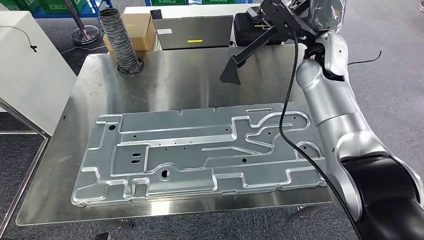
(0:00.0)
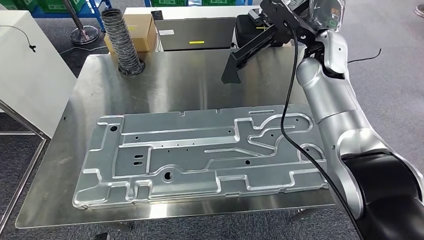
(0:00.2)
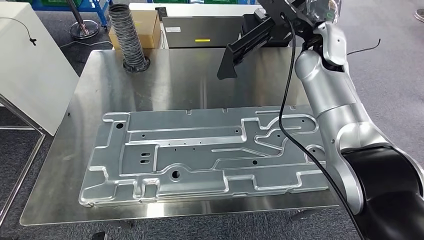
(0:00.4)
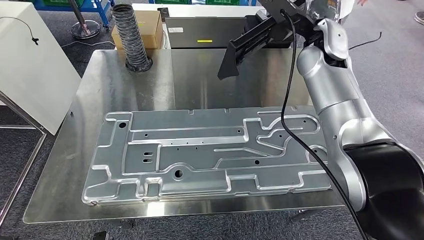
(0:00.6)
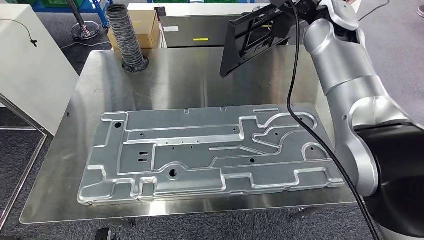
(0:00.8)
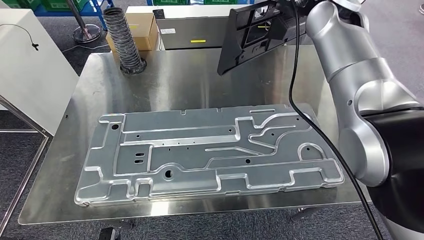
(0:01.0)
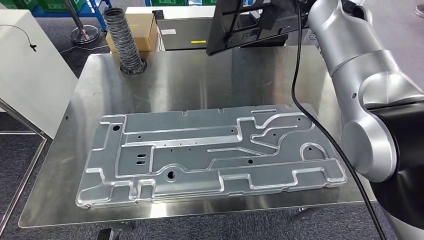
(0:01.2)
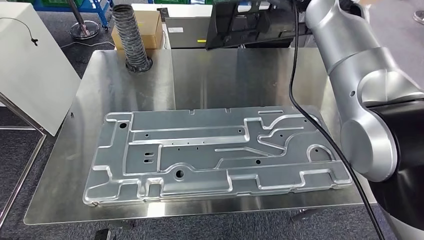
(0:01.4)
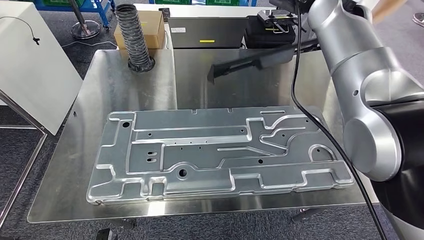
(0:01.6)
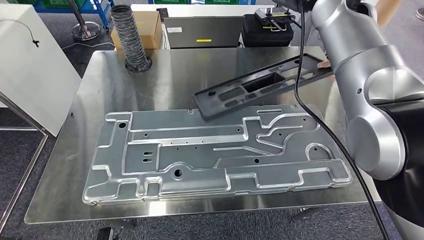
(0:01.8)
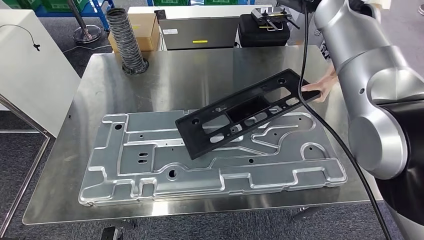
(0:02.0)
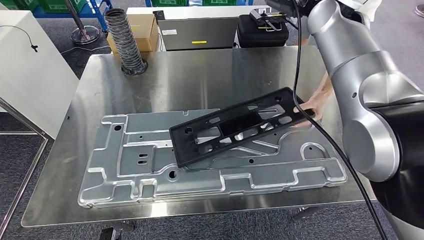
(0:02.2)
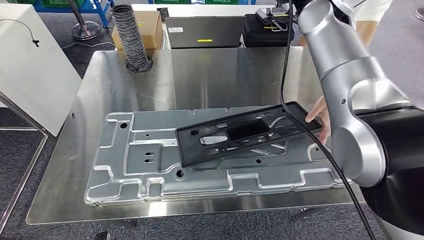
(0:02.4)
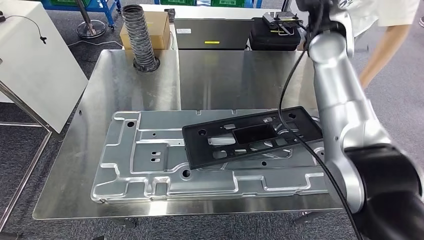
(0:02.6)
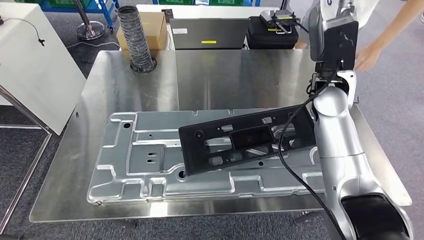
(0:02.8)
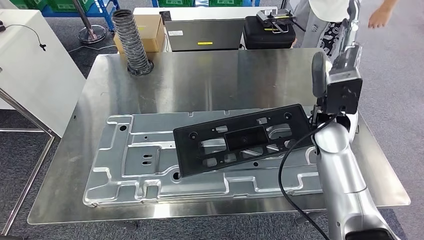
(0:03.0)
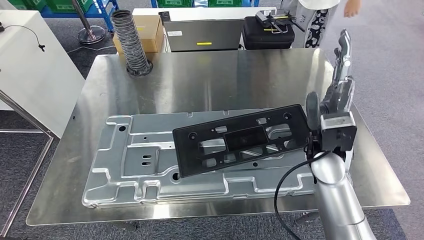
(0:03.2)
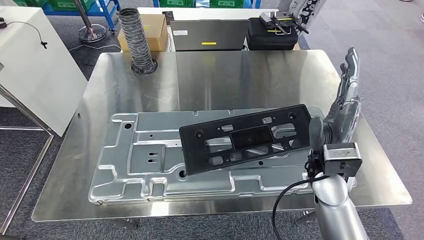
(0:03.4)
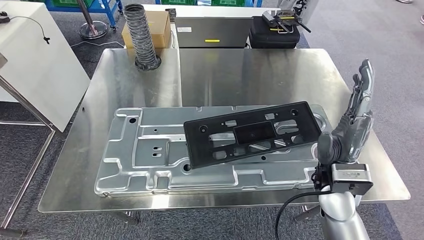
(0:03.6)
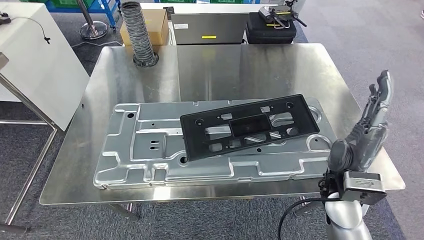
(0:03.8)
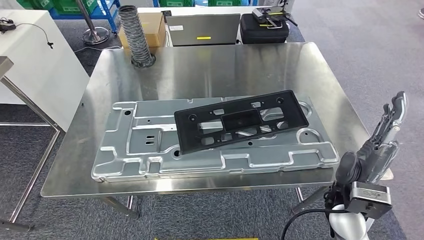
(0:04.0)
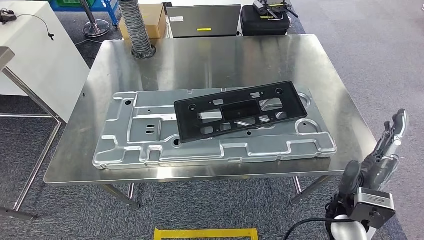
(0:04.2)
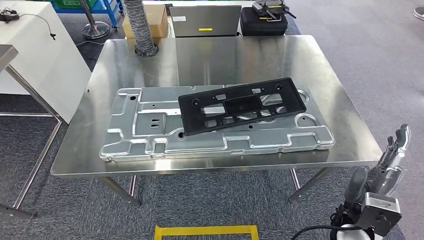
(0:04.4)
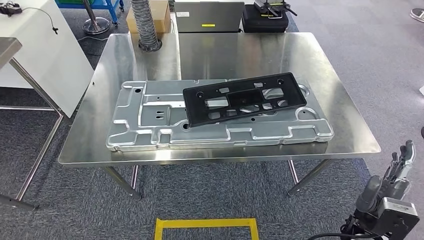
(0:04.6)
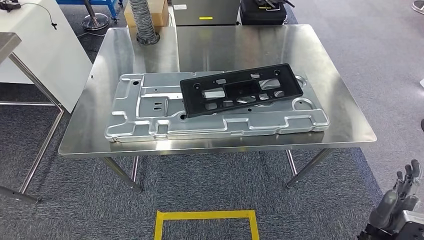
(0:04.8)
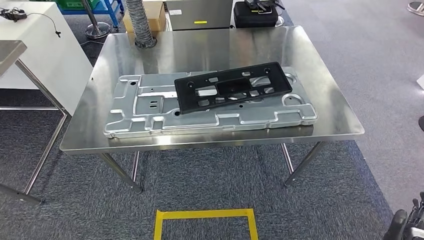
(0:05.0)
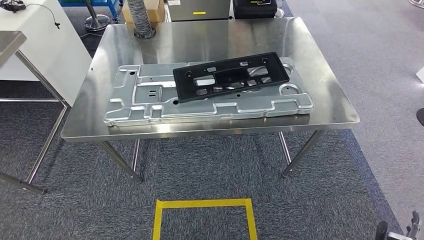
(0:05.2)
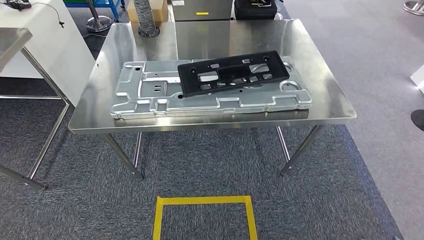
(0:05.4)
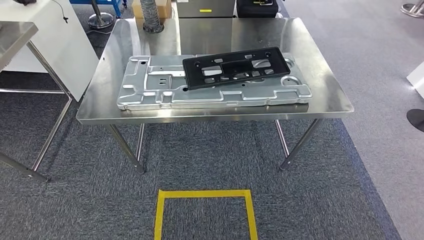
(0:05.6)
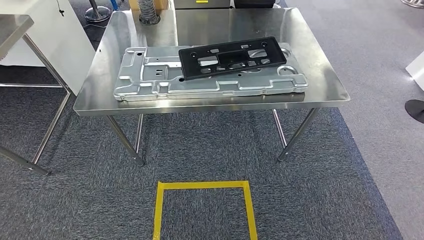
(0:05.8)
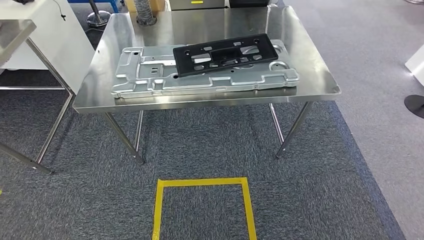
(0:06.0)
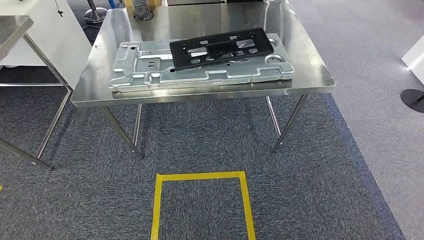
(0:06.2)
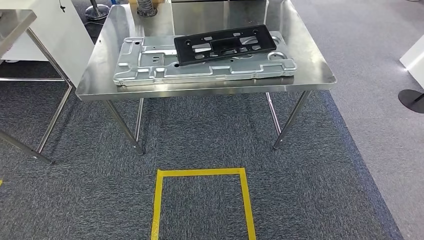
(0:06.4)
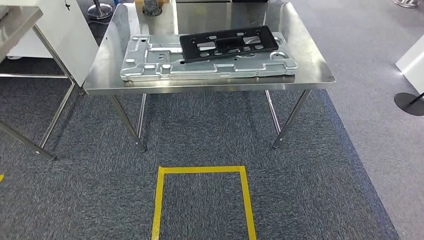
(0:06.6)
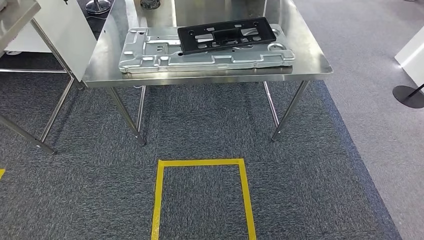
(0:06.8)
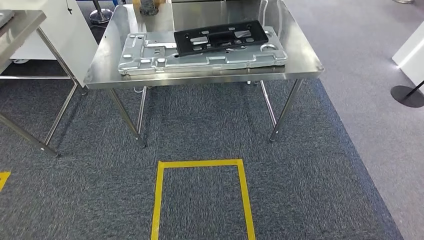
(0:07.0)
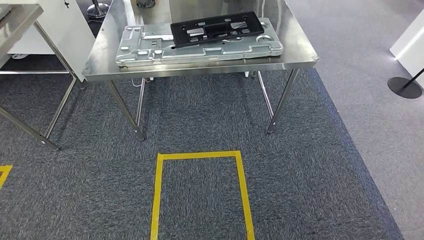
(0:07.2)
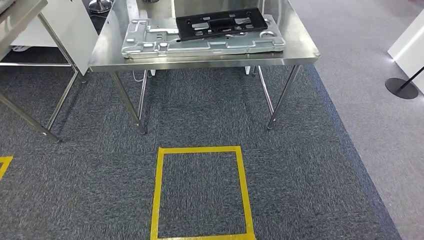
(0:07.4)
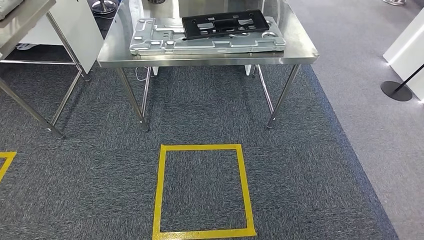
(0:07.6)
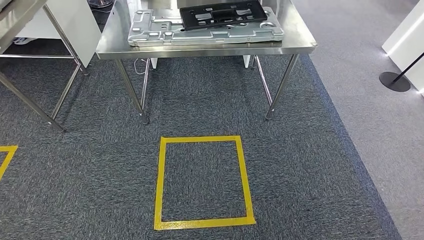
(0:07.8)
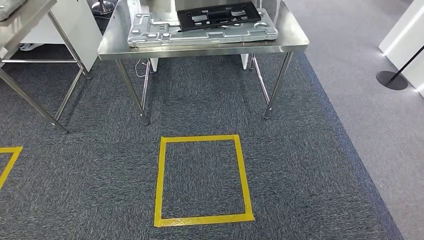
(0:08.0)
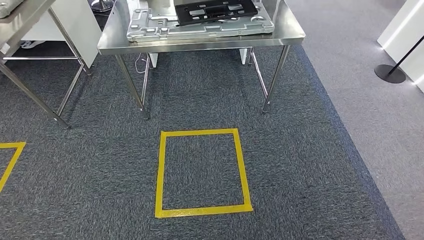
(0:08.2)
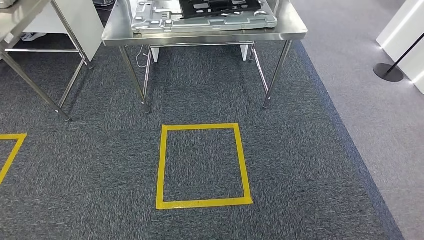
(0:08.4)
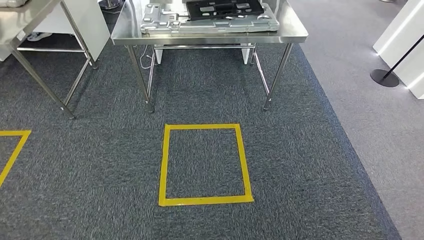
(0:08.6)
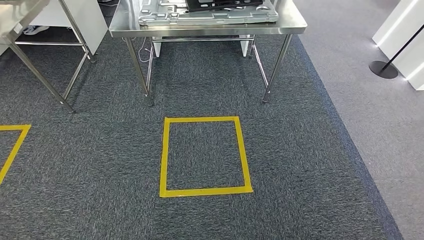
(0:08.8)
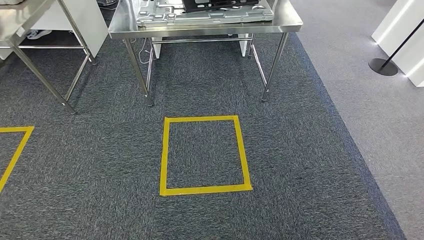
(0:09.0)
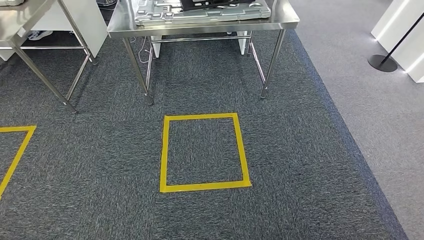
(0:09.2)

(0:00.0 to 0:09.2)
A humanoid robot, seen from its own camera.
Step, 0:00.0 - 0:05.0: Insert the large material into the corresponding slot on the workbench.
Step, 0:05.2 - 0:09.2: Return to the initial position at the shelf.

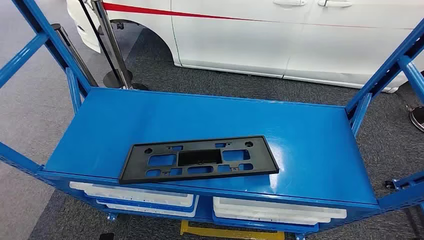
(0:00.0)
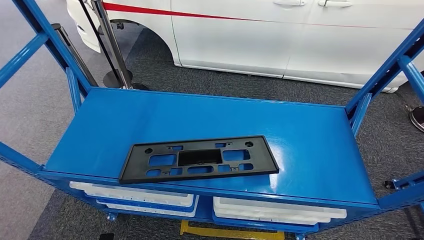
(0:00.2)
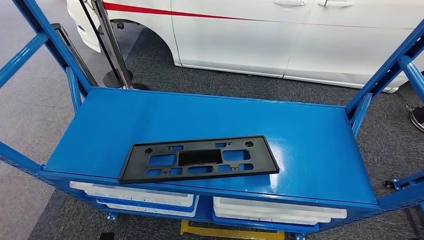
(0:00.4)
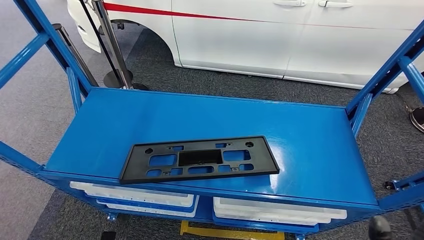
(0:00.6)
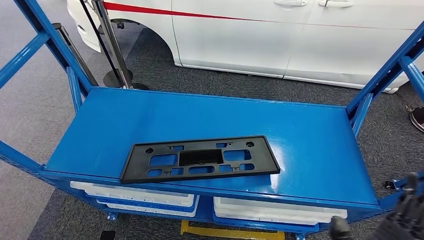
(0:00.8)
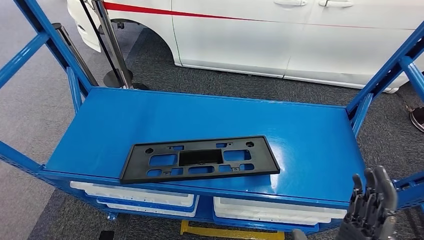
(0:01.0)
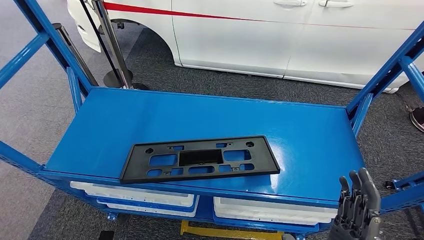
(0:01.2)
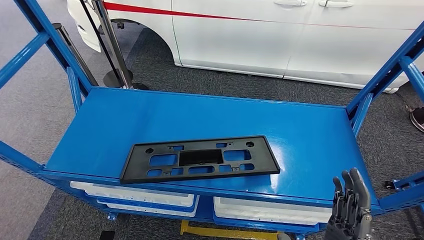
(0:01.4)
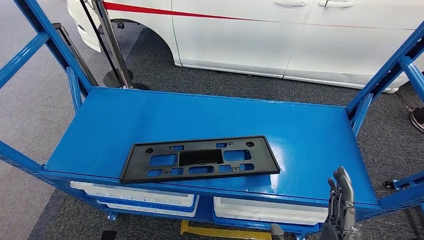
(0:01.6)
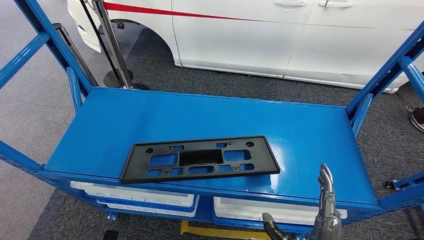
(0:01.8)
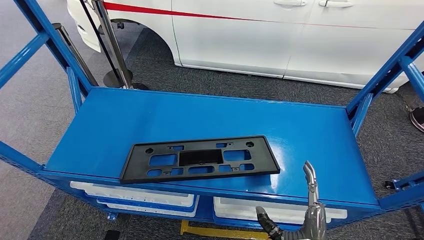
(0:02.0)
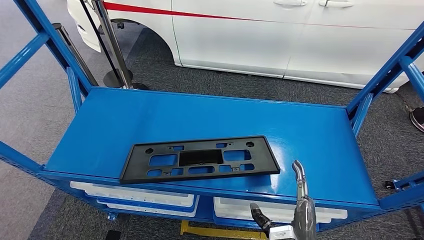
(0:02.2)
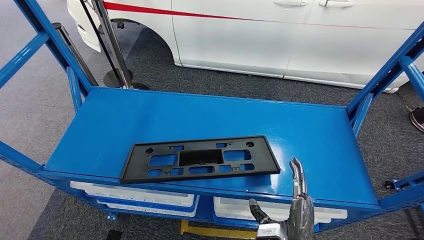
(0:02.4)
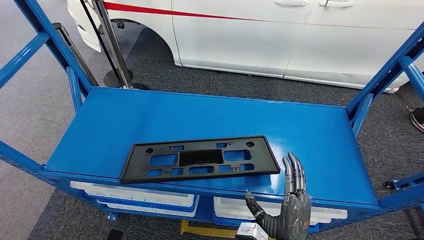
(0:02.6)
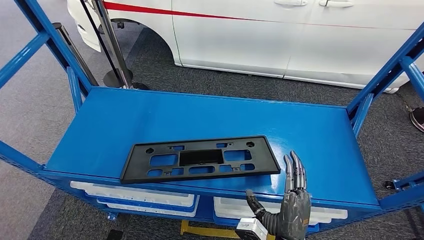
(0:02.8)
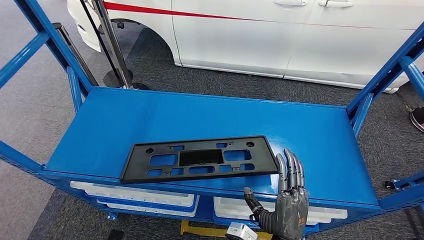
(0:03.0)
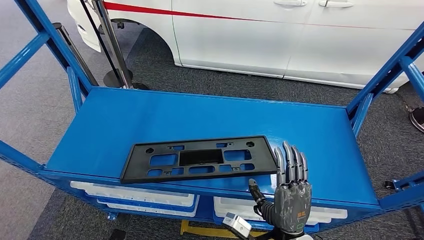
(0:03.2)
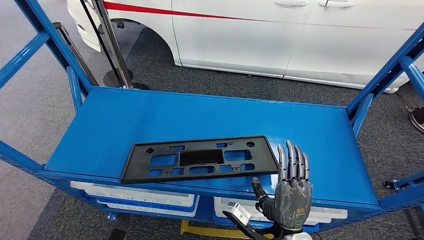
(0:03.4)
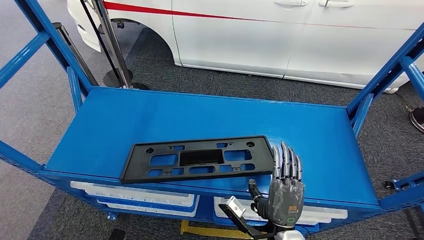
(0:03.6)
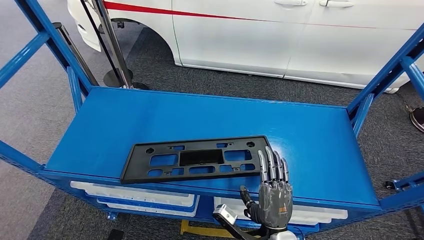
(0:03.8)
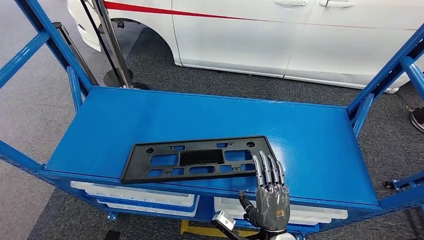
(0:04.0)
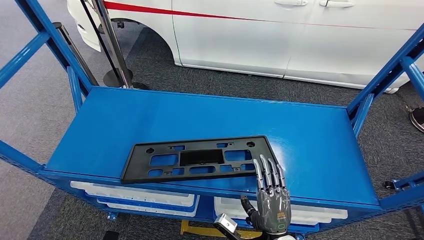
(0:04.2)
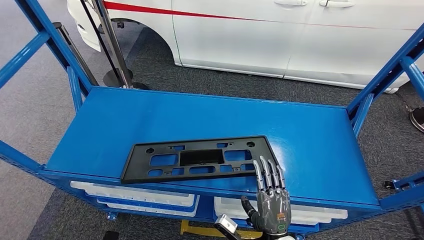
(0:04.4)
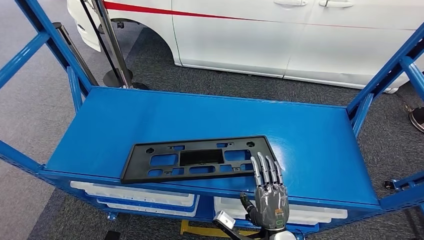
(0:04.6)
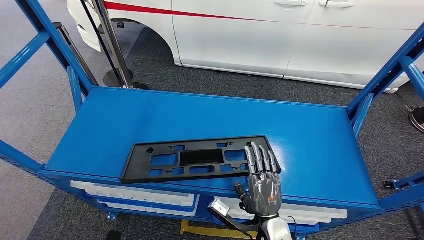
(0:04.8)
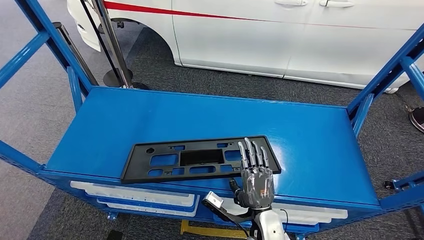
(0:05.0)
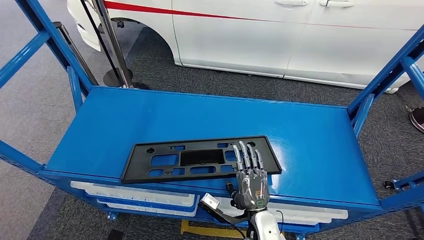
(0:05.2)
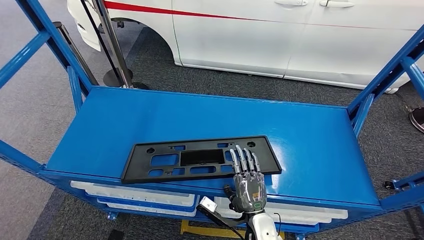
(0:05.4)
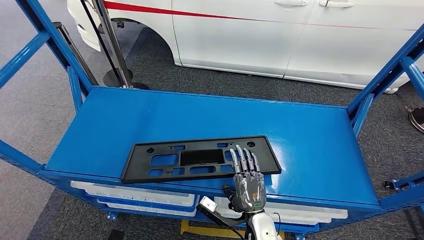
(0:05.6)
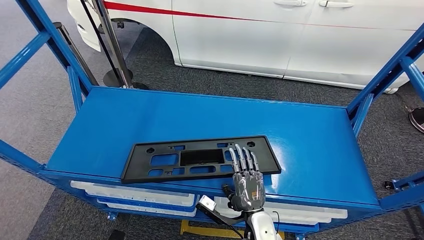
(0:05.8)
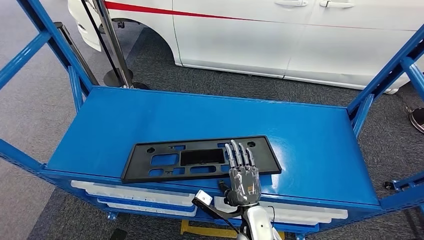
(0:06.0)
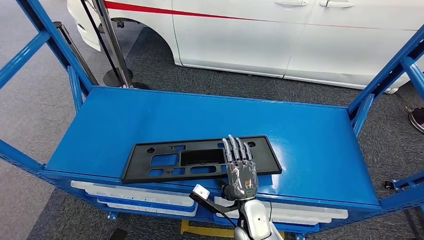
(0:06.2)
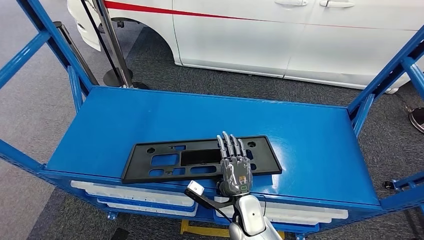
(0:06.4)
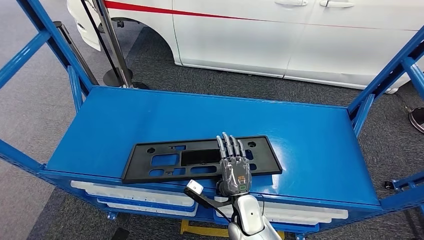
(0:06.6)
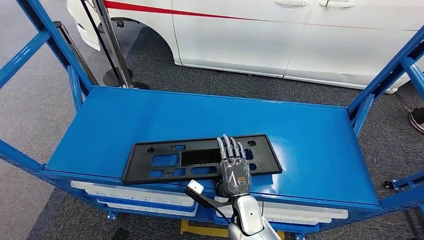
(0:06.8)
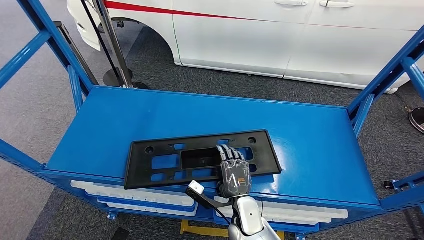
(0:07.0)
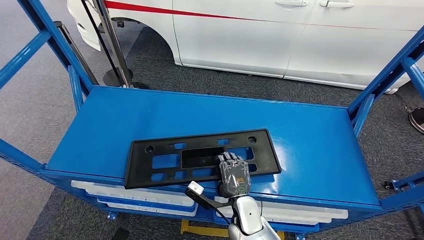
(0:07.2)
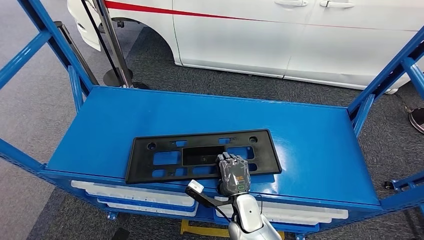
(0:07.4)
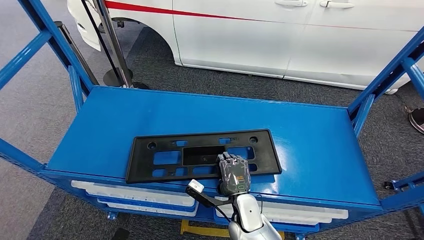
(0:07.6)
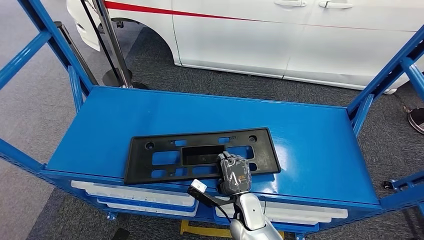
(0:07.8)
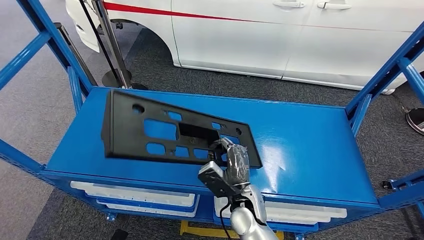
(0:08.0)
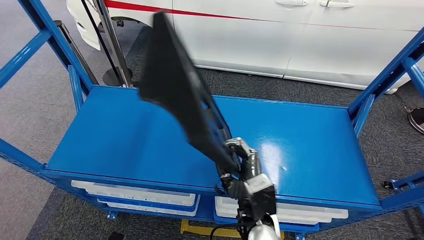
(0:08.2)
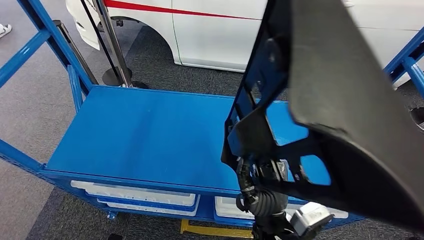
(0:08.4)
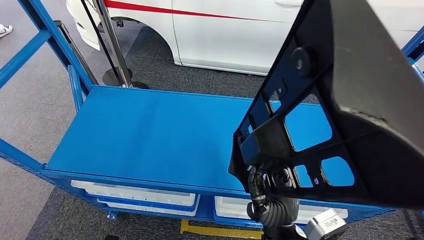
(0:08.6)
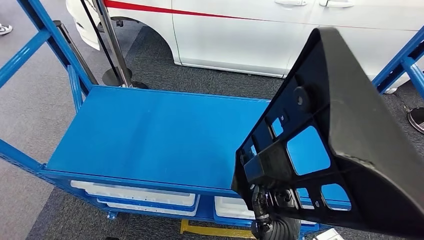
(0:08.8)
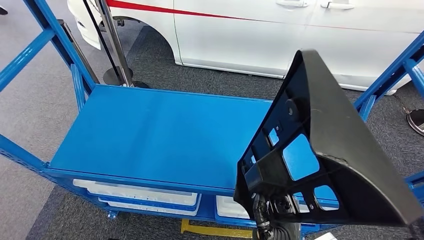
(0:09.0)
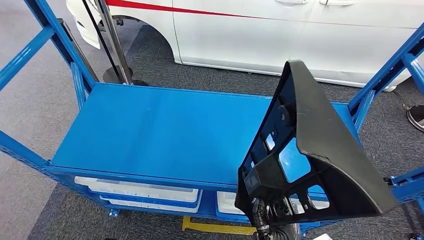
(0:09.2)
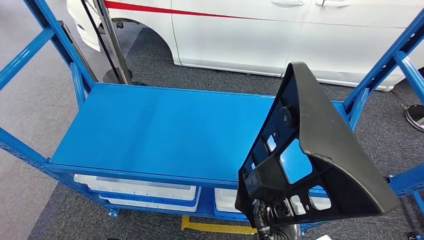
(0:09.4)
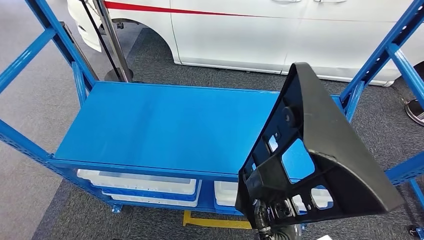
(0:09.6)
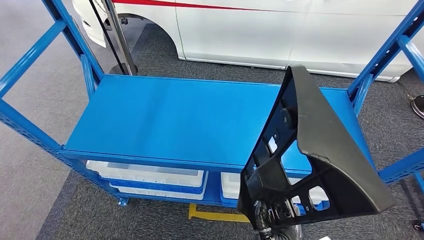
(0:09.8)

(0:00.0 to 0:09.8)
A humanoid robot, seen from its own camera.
Step, 0:00.0 - 0:09.4: Pick up the large material from the shelf.
0:01.4 - 0:02.8: The right hand shifts some 10 cm downward and forward.
0:04.2 - 0:05.6: The right hand shifts by approximately 5 cm.
0:05.6 - 0:07.0: There are only small adjustments of the hands.
